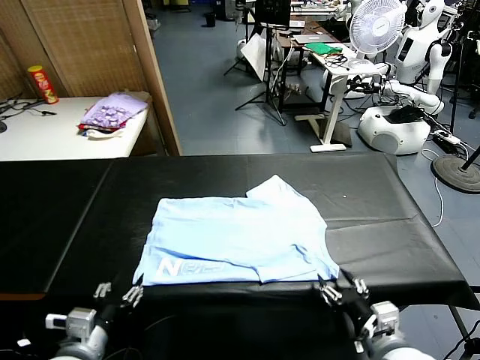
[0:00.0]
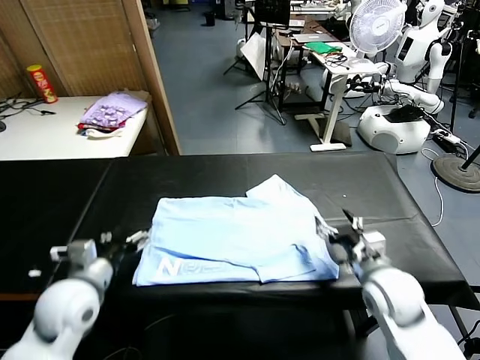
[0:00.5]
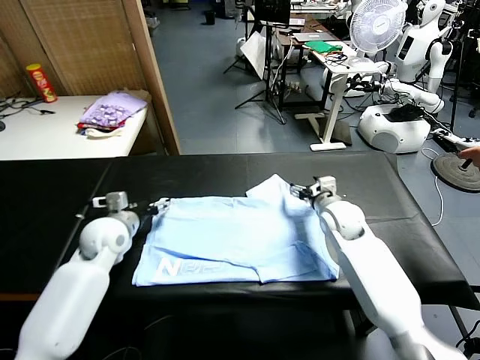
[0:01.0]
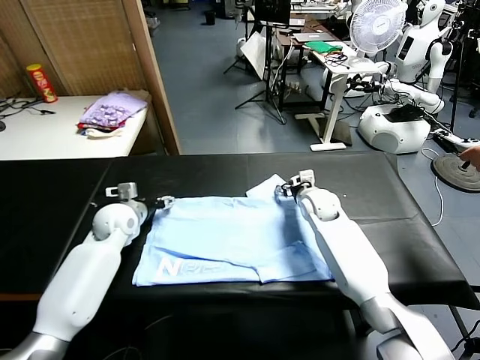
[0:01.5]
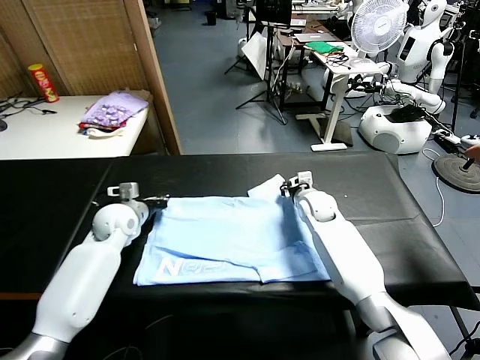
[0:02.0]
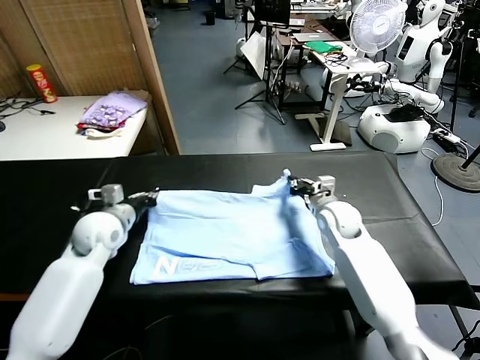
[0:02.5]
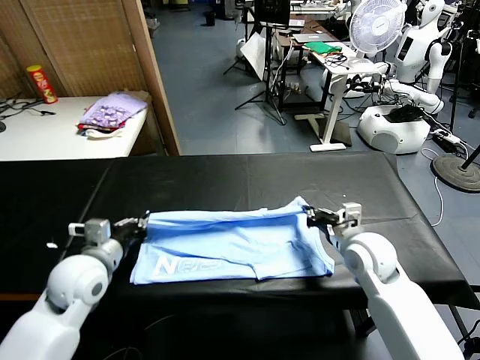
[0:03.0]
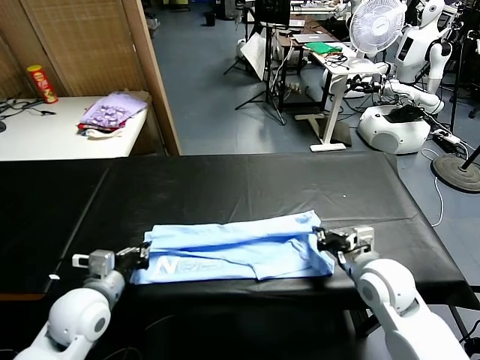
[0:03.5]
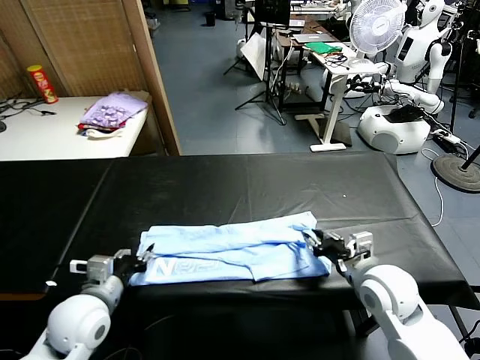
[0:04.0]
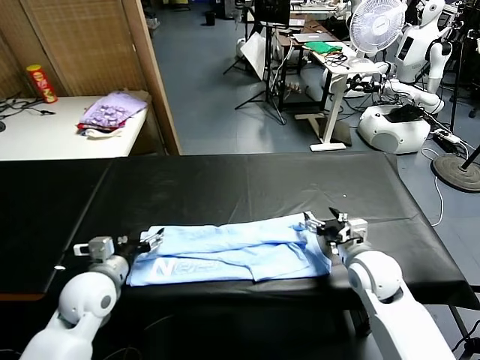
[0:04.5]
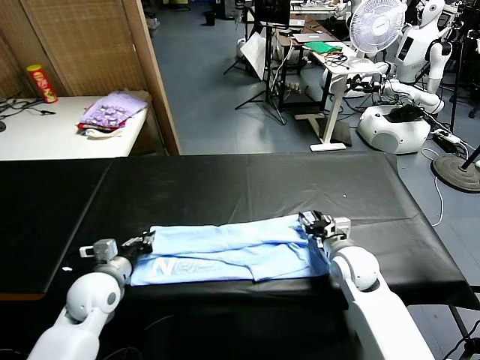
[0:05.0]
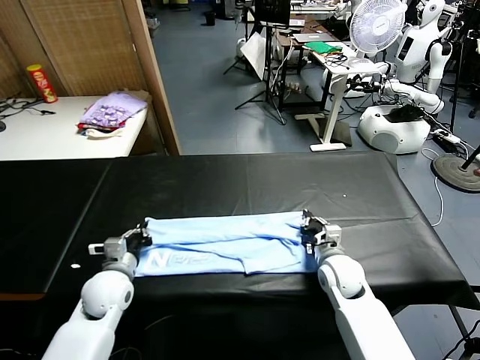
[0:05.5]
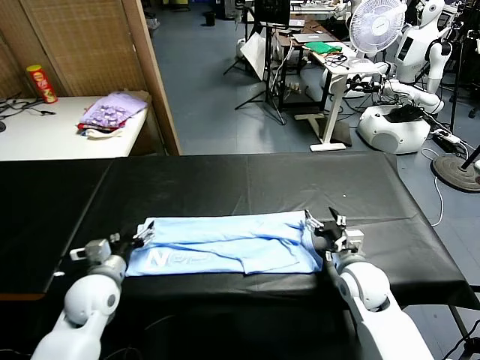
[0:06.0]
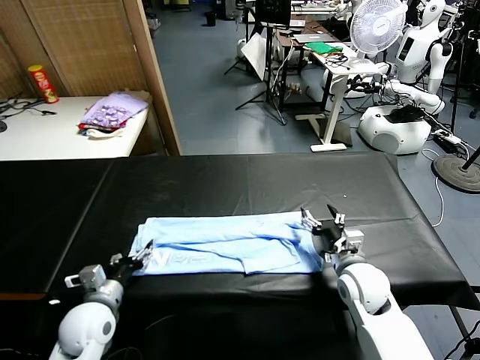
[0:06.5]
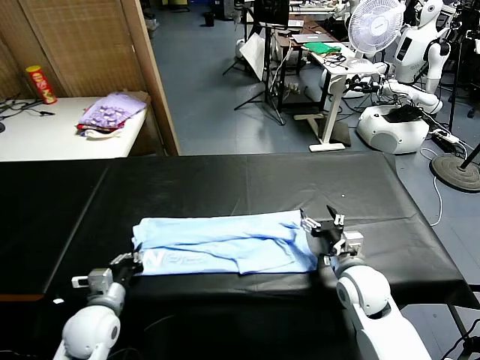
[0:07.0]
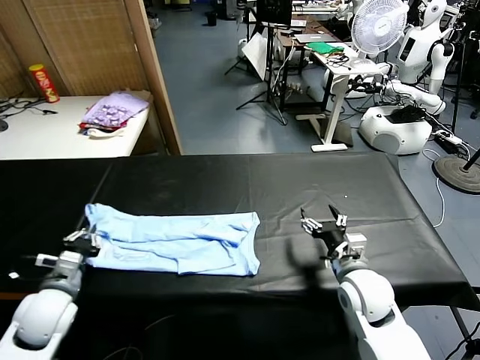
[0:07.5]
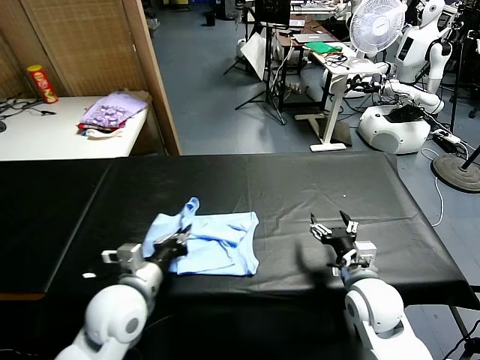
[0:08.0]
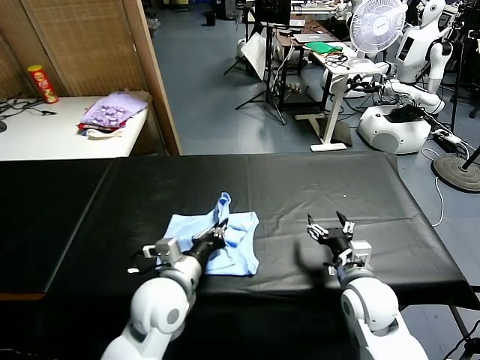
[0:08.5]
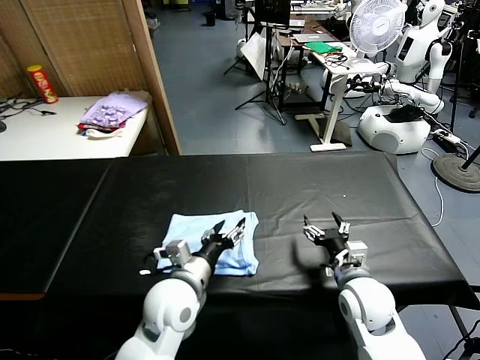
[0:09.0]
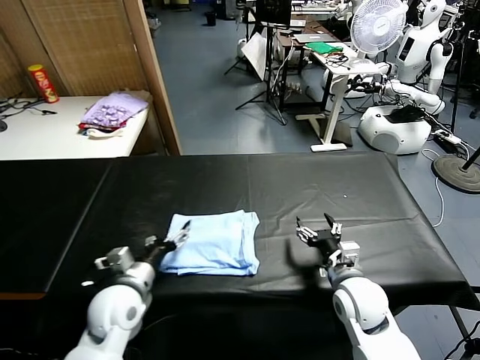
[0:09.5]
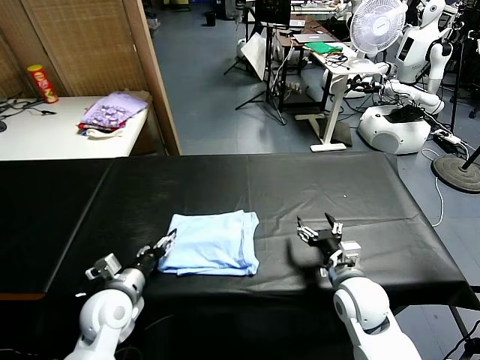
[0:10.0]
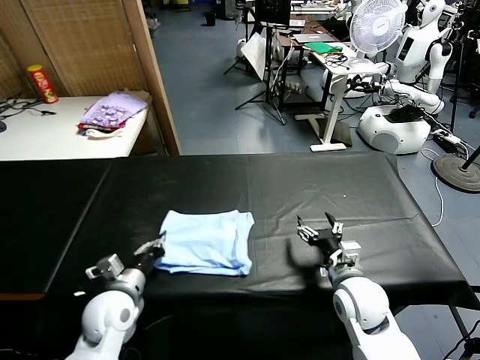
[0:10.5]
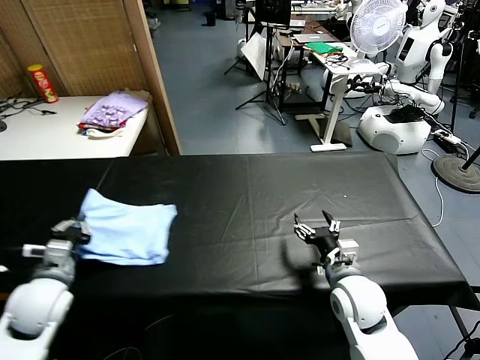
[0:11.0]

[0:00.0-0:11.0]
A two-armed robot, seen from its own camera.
Task of the whole recording: fold and organize the clothes.
Step, 0:00.0 to 0:01.5: use both grippers simultaneously to clamp the upper edge of the clothing fabric.
Step, 0:02.0 to 0:03.5: use both grippers to drag the upper edge of the fabric backward and fold it over the lower edge.
Step, 0:04.5 to 0:06.5: use the left gripper to clamp the left edge of the fabric.
Step, 0:07.0 to 0:08.5: use the left gripper to drag the left edge of the fabric to the left and folds it over the right edge.
0:00.0 to 0:02.0: The two grippers go roughly 30 cm forward. The right gripper closes up. The left gripper closes up.
0:02.0 to 0:03.5: The grippers both shift backward by about 20 cm.
0:03.5 to 0:05.5: The left gripper moves forward and downward, approximately 10 cm, and opens and closes again, while the right gripper goes roughly 10 cm downward and forward, and opens, then closes again.
0:05.5 to 0:07.5: The left gripper moves to the left, backward and upward, some 10 cm, and opens, then closes again, while the right gripper moves backward and upward, some 10 cm, and opens its fingers.
0:07.5 to 0:09.0: The left gripper is displaced to the right by some 25 cm, and opens up.
0:09.0 to 0:11.0: The left gripper is displaced to the left by roughly 25 cm, and closes up.

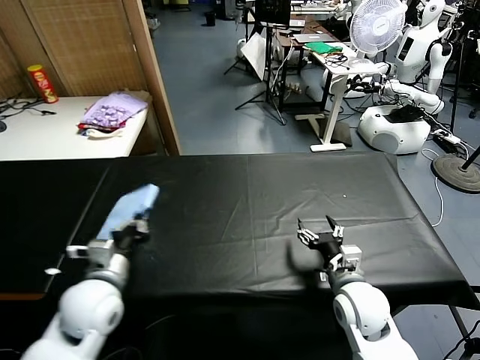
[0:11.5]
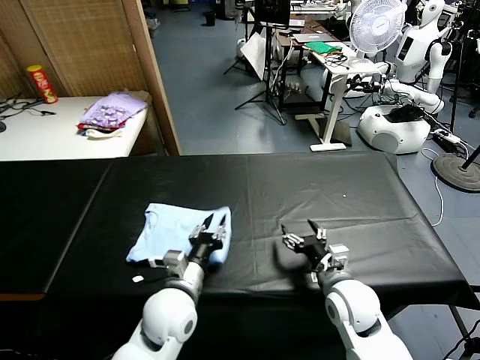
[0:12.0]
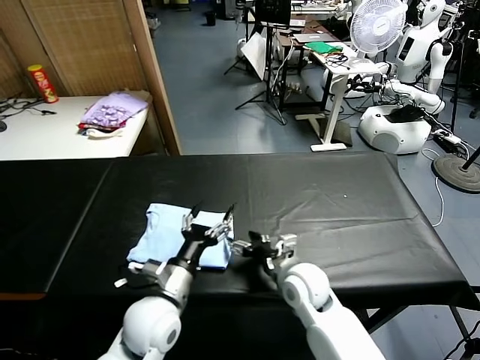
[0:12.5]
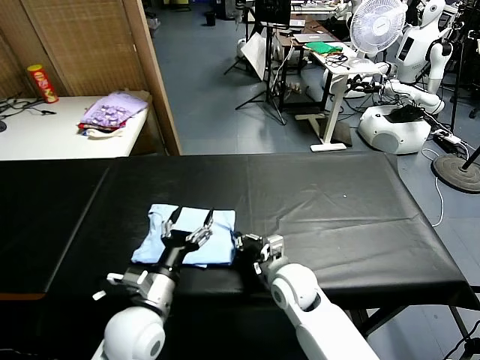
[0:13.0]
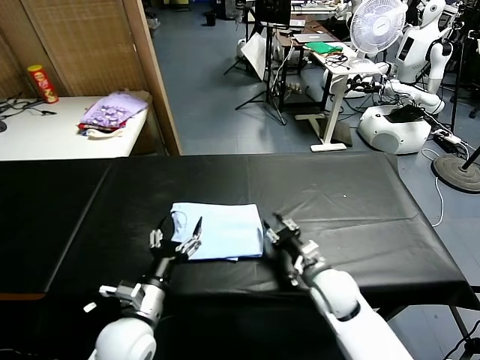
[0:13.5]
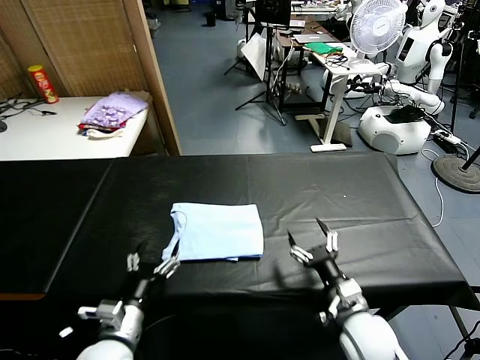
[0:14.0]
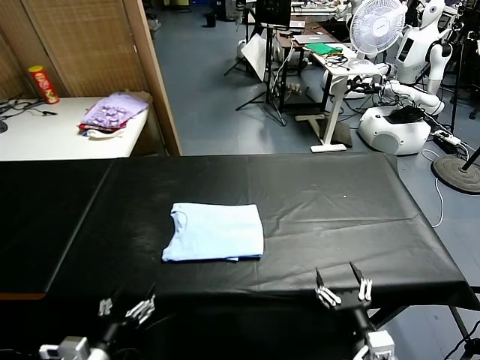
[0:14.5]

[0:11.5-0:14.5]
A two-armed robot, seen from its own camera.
Task of the whole recording: fold and organize the clothes.
Step, 0:12.5 to 0:13.0: Drag the clothes to the center of the table.
0:11.5 to 0:13.0: The left gripper is displaced to the right by approximately 10 cm, and opens its fingers. Meanwhile the right gripper goes roughly 15 cm to the left and forward, and closes.
0:13.0 to 0:14.5: The right gripper heads backward and to the right, covering some 25 cm, and opens up, while the left gripper heads backward and to the left, covering approximately 15 cm.

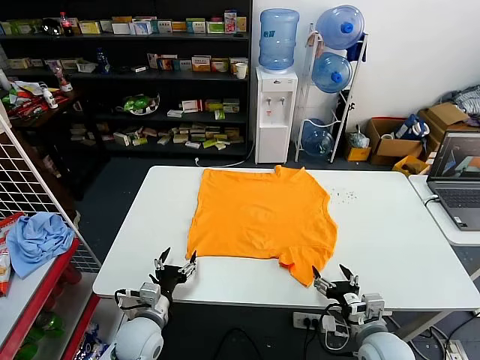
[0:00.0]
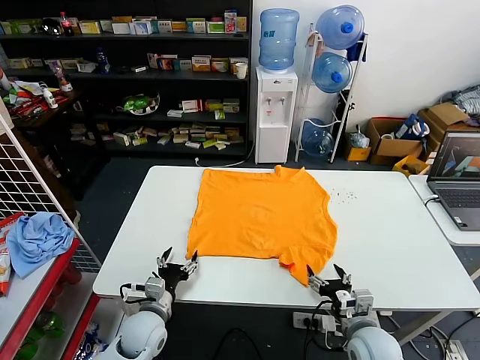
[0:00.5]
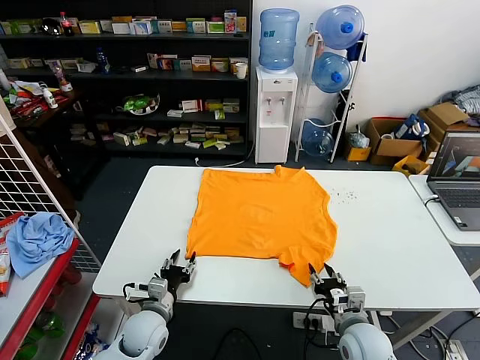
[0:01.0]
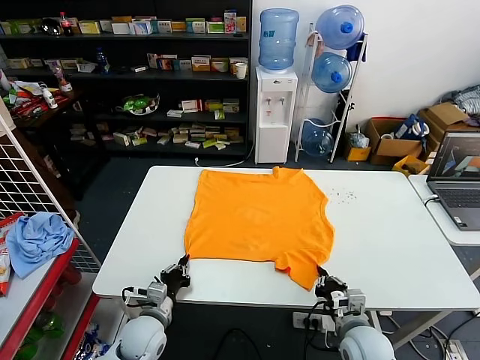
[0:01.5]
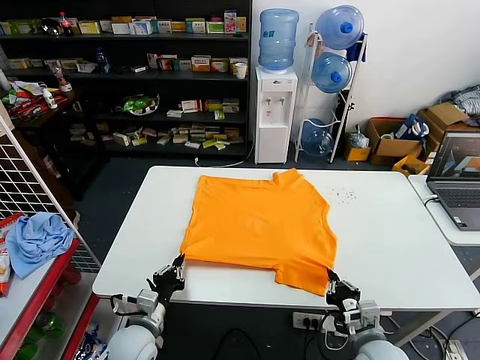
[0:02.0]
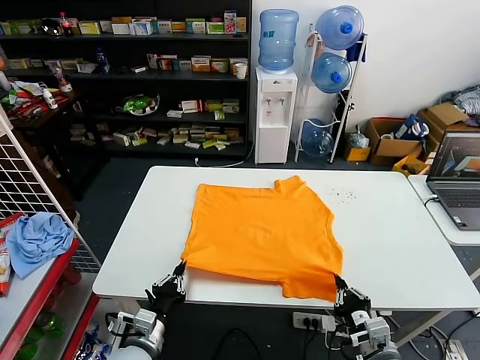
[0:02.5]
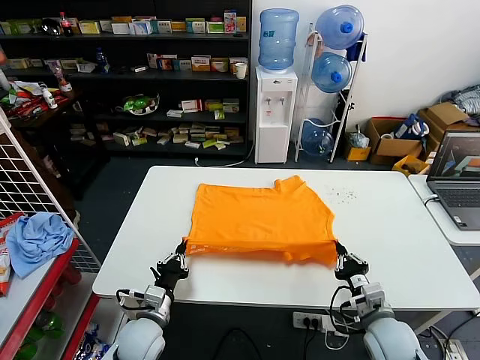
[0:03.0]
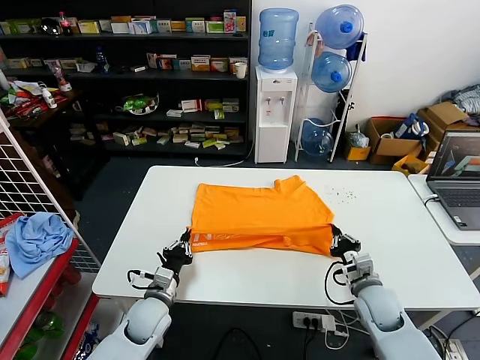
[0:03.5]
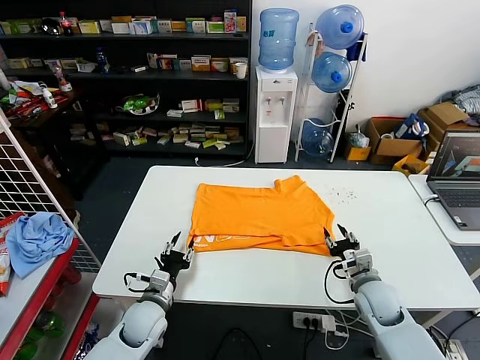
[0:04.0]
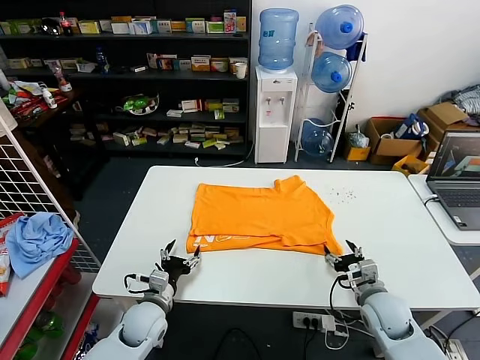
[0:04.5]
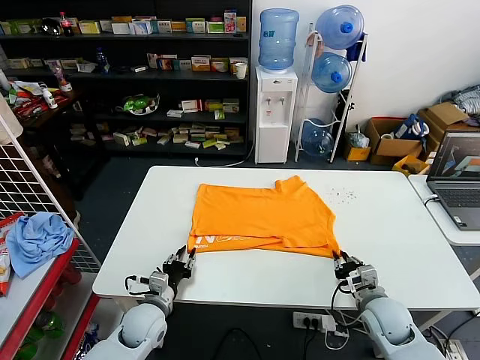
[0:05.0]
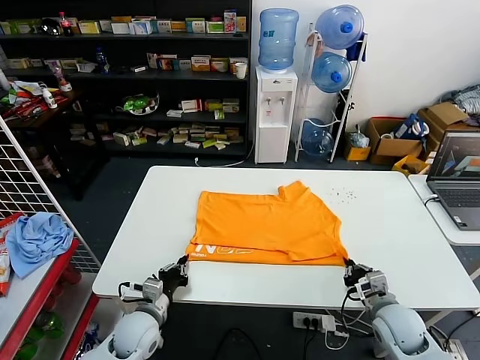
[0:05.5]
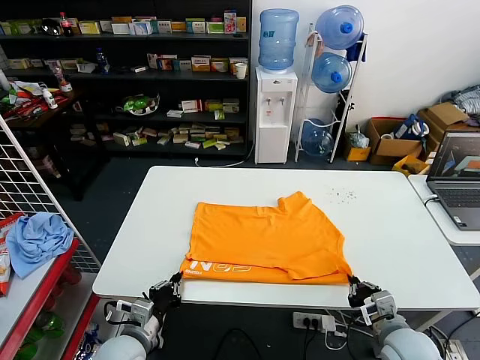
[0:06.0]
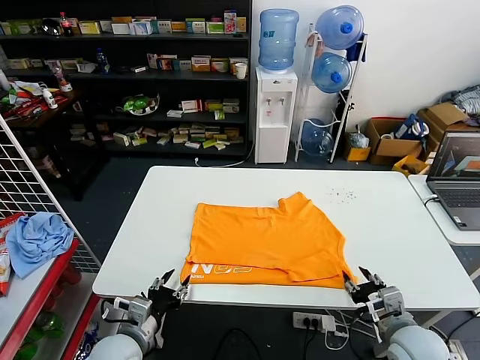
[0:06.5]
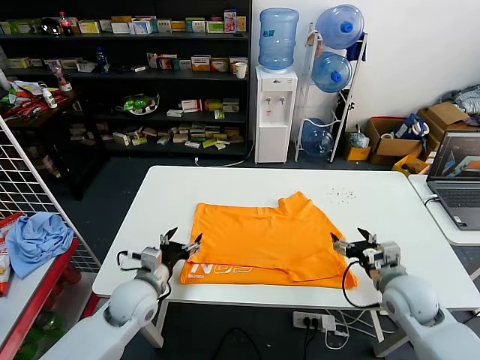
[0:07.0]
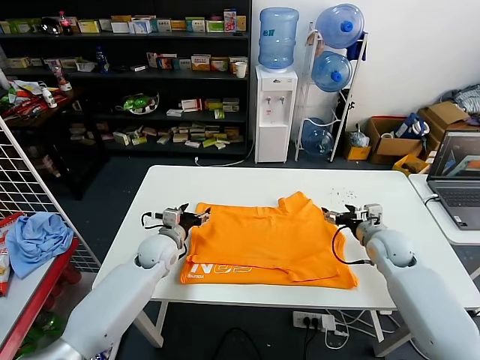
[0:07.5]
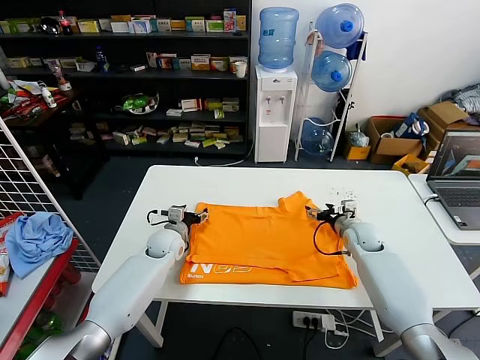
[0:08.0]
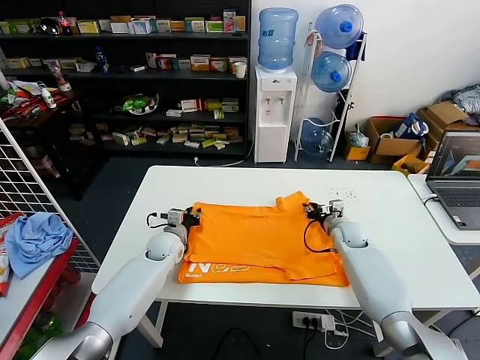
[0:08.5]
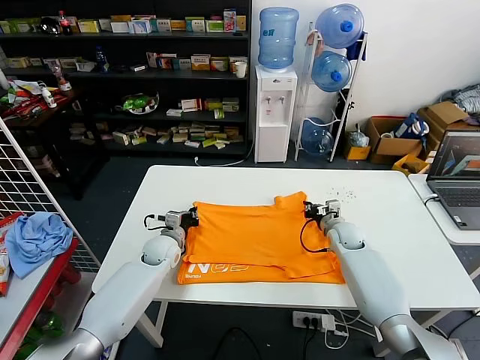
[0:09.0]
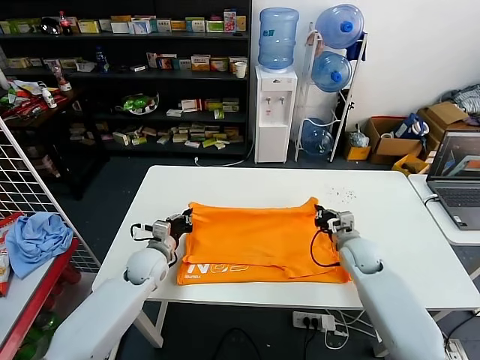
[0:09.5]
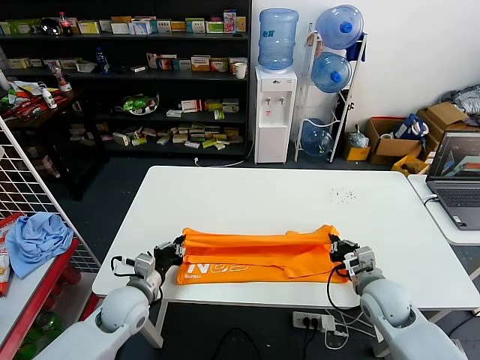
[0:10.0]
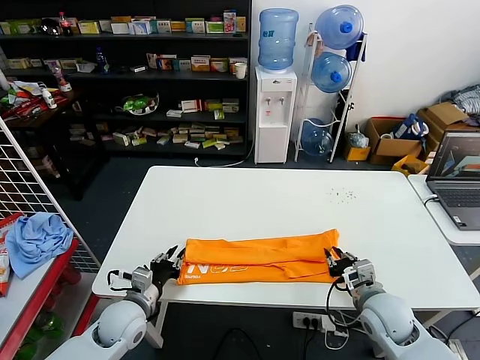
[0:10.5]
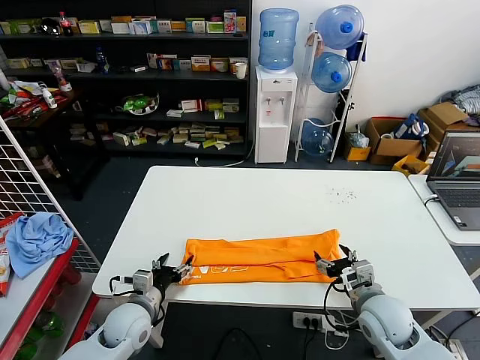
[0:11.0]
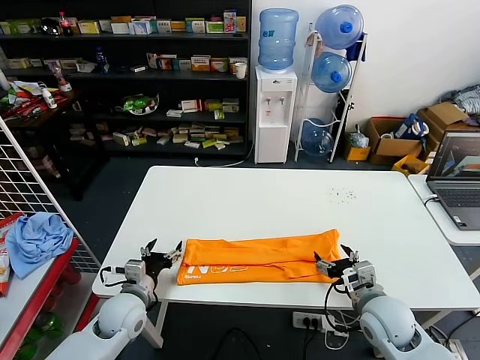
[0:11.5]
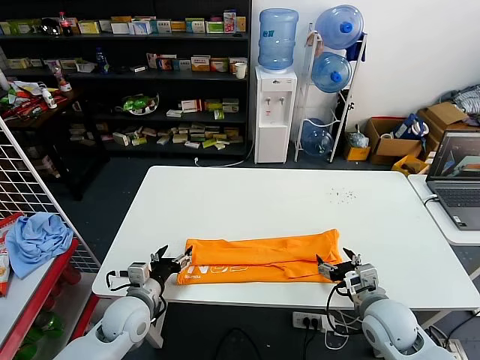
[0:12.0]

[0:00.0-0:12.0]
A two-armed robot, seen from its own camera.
Task of the whole recording: fold and organize the clothes.
Step, 0:00.0 to 0:01.5: use both grippers simultaneously to clamp the lower edge of the clothing fabric.
Step, 0:02.0 to 0:03.5: use both grippers to drag the lower edge of the fabric forward and fold it over the upper edge.
Step, 0:04.0 to 0:06.0: Drag the clothes downward with both gripper.
Step, 0:06.5 to 0:08.5: use both grippers simultaneously to clamp the upper edge of the clothing fabric.
Step, 0:09.0 to 0:10.5: use both grippers to drag the upper edge of the fabric backward and fold it over the lower edge.
0:02.0 to 0:04.0: The right gripper moves forward, roughly 15 cm, and opens, while the left gripper goes roughly 5 cm forward, and opens.
0:04.0 to 0:06.0: Both grippers move backward, about 10 cm. The right gripper closes up, while the left gripper closes.
0:06.0 to 0:08.0: Both grippers move forward, approximately 25 cm. The left gripper opens up. The right gripper opens.
0:08.0 to 0:10.0: The two grippers go about 20 cm backward. The left gripper closes, while the right gripper closes its fingers.
0:10.0 to 0:12.0: The left gripper opens up. The right gripper opens up.
